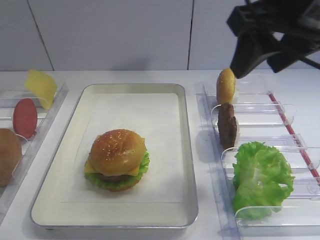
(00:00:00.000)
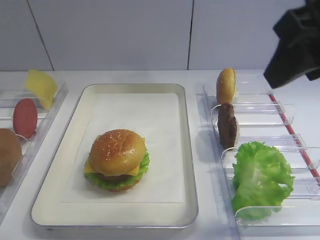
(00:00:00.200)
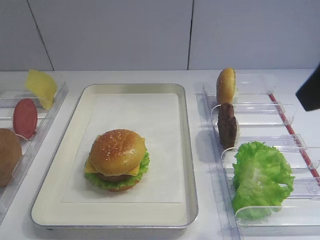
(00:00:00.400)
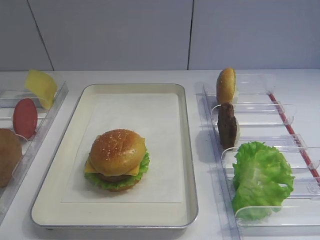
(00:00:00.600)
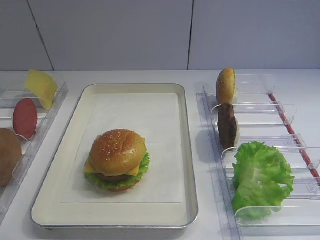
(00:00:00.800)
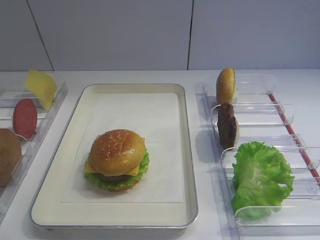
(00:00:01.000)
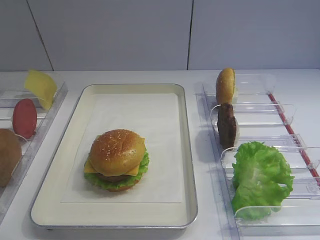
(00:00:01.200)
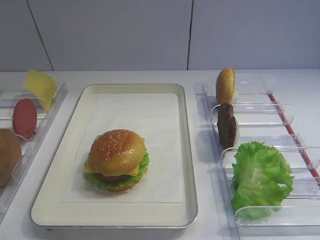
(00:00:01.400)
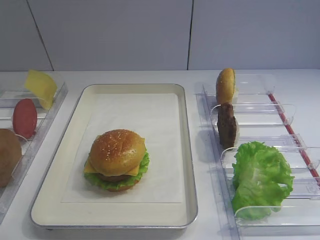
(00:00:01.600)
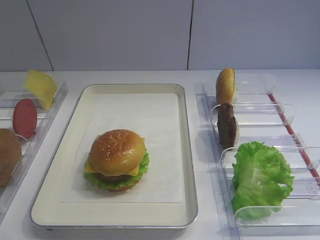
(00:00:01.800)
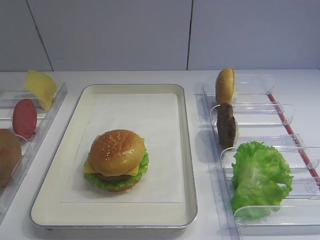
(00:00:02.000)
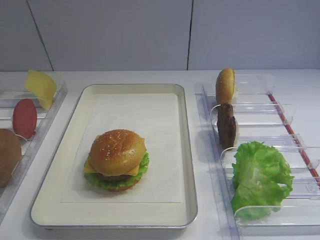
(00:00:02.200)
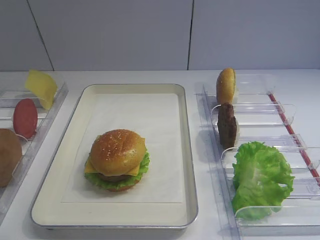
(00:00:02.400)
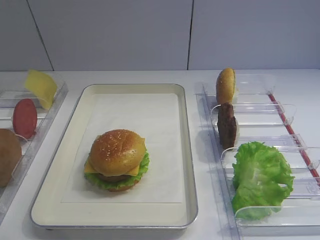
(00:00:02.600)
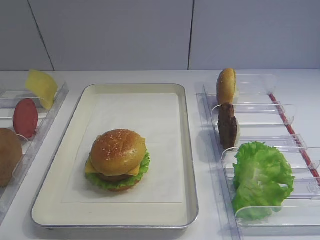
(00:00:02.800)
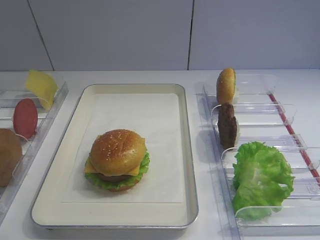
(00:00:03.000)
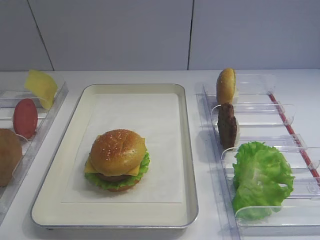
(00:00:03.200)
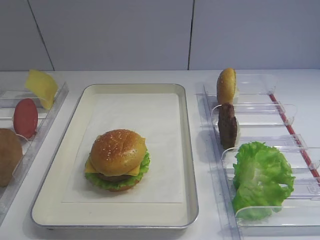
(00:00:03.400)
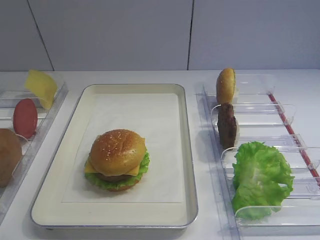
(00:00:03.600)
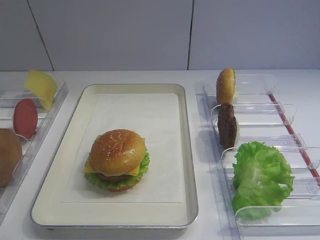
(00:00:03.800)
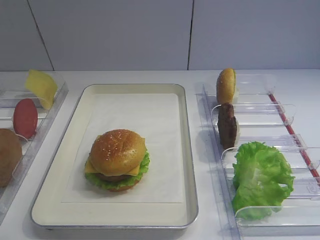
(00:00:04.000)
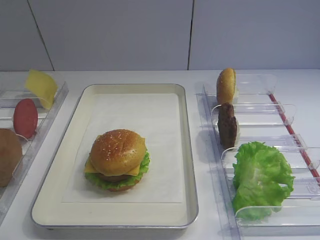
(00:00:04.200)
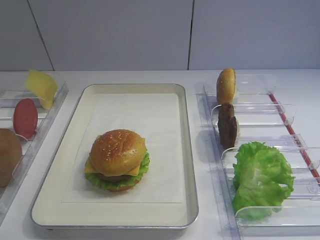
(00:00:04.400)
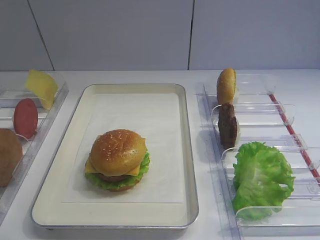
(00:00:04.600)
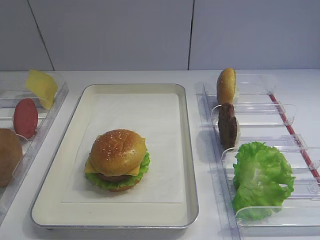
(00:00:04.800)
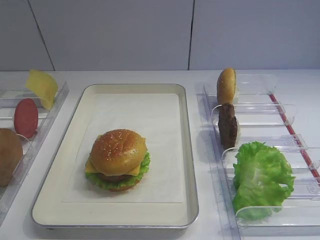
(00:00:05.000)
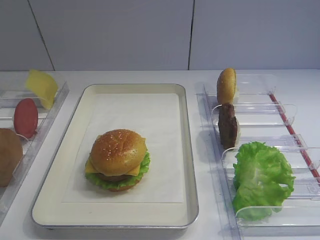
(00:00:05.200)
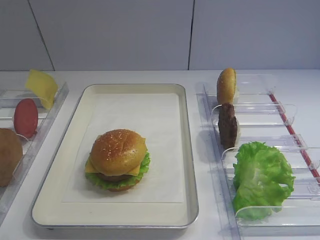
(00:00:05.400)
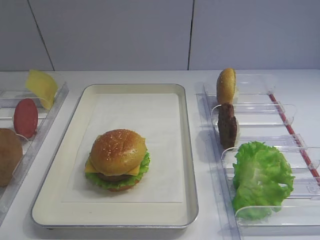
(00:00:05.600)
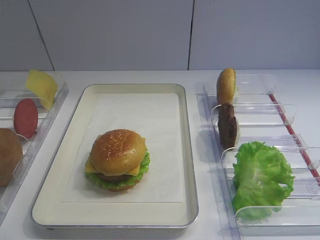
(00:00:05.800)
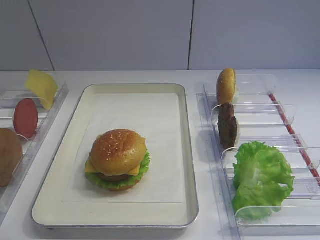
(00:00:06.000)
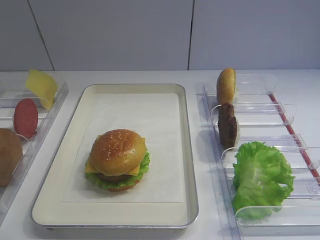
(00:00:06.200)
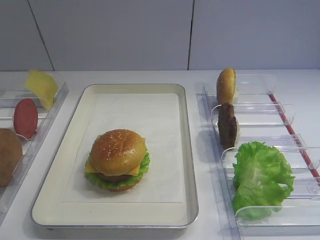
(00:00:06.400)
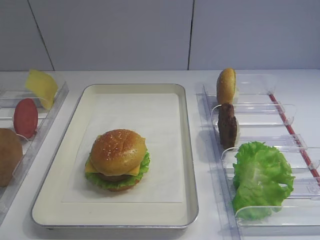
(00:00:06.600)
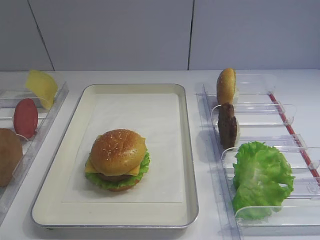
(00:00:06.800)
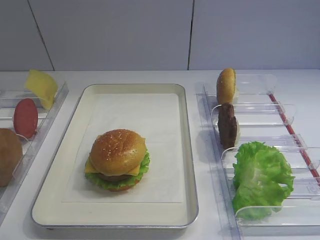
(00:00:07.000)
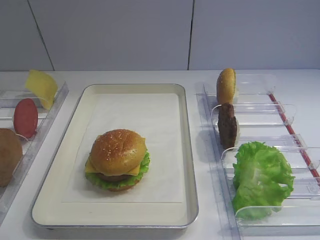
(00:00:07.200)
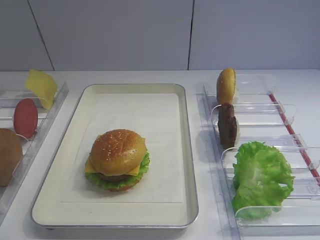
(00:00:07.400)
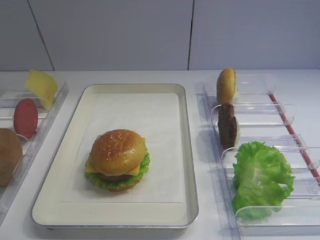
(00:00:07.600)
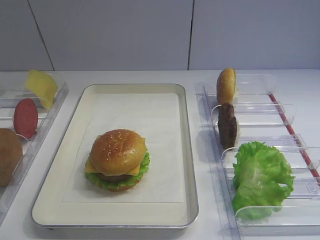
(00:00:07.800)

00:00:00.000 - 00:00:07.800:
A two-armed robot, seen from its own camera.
00:00:00.000 - 00:00:01.600: The right gripper goes some 25 cm backward and to the right.
00:00:03.200 - 00:00:07.800: Neither gripper changes place.

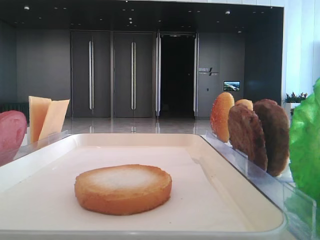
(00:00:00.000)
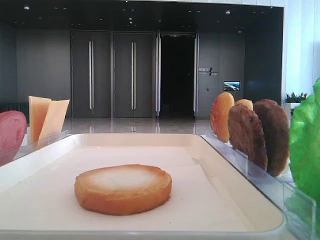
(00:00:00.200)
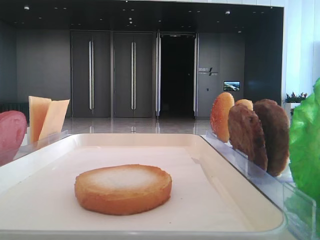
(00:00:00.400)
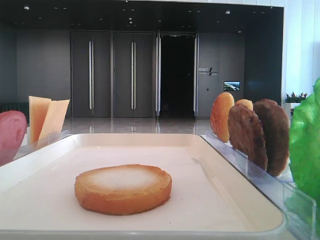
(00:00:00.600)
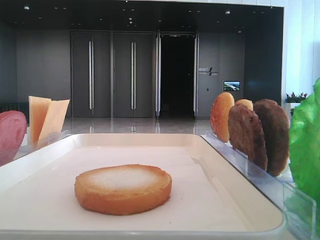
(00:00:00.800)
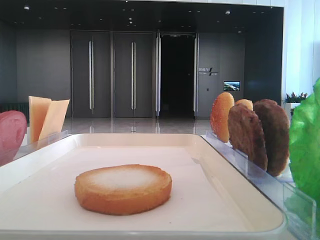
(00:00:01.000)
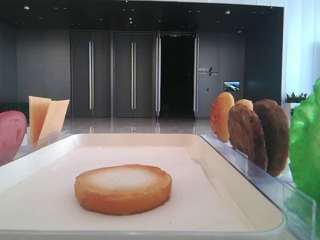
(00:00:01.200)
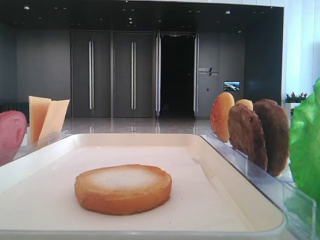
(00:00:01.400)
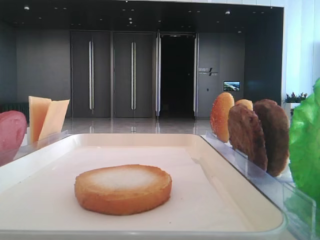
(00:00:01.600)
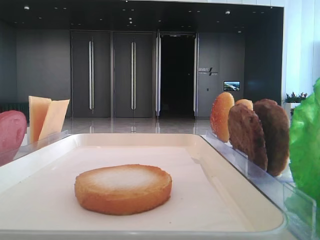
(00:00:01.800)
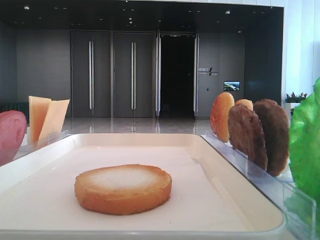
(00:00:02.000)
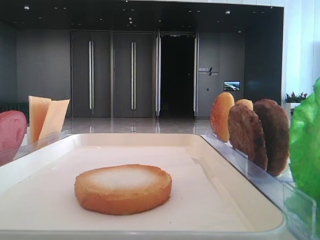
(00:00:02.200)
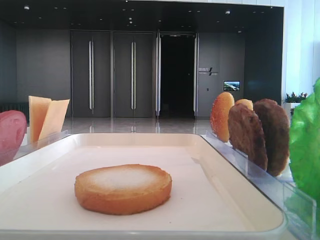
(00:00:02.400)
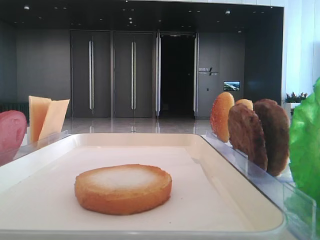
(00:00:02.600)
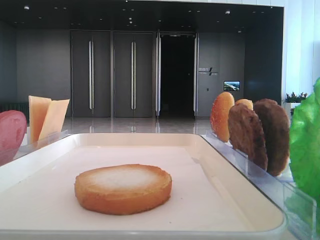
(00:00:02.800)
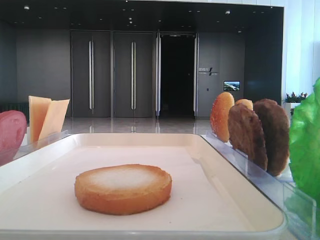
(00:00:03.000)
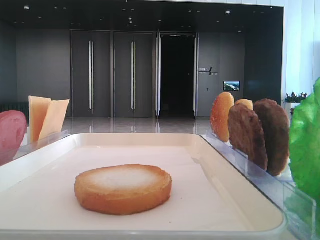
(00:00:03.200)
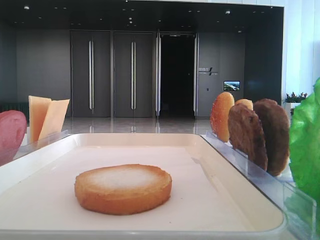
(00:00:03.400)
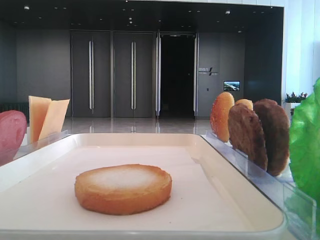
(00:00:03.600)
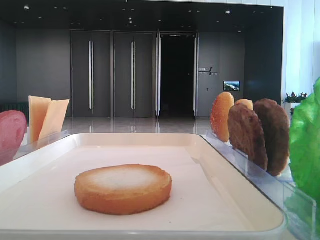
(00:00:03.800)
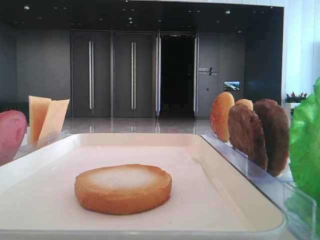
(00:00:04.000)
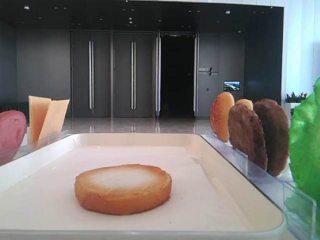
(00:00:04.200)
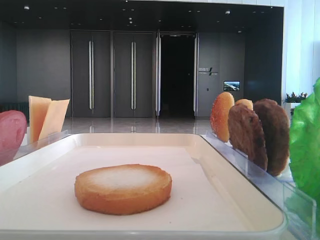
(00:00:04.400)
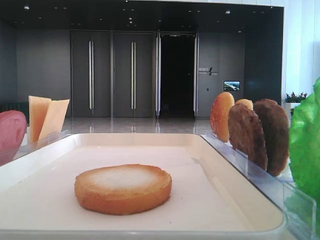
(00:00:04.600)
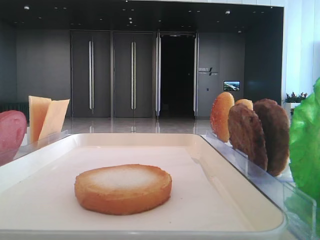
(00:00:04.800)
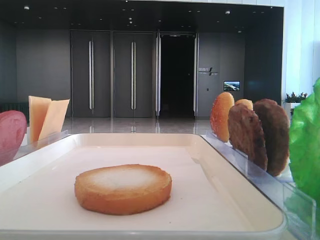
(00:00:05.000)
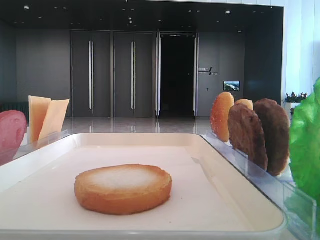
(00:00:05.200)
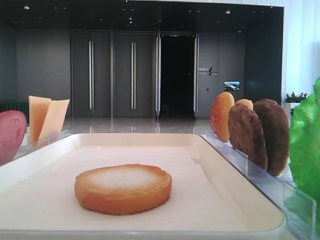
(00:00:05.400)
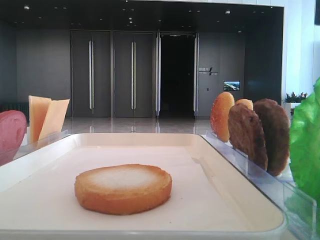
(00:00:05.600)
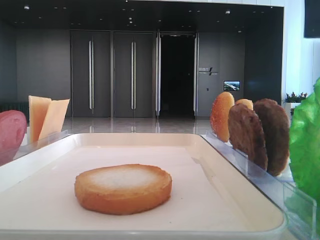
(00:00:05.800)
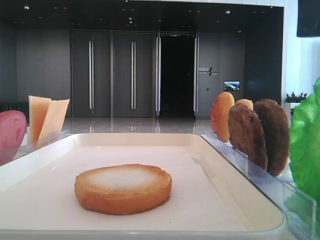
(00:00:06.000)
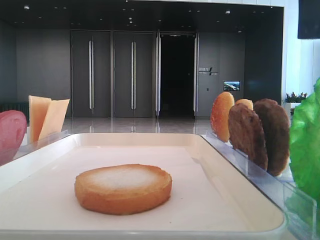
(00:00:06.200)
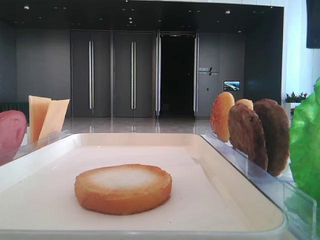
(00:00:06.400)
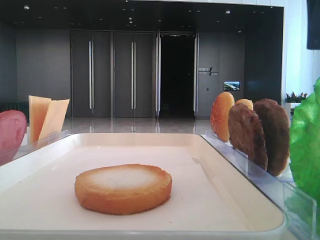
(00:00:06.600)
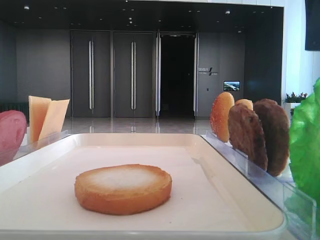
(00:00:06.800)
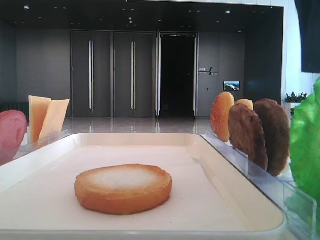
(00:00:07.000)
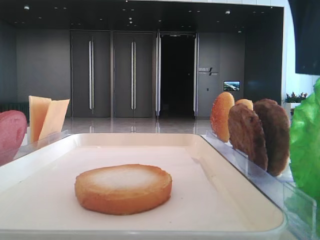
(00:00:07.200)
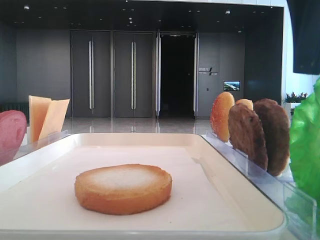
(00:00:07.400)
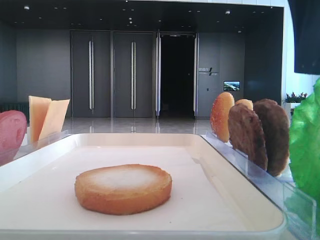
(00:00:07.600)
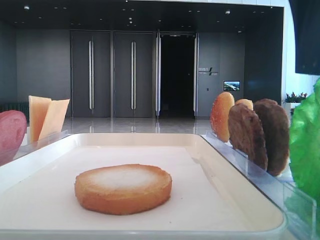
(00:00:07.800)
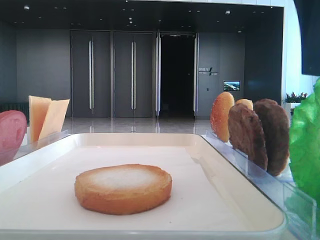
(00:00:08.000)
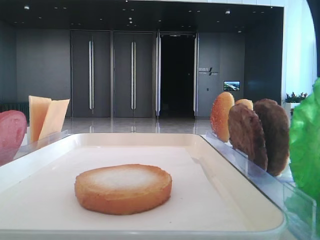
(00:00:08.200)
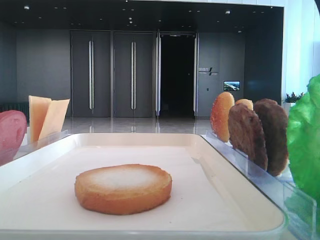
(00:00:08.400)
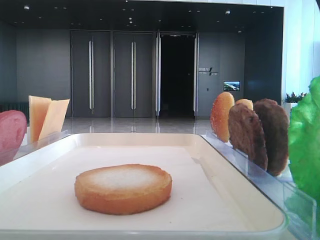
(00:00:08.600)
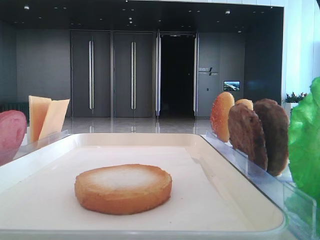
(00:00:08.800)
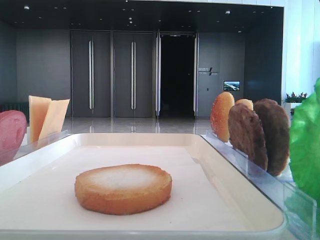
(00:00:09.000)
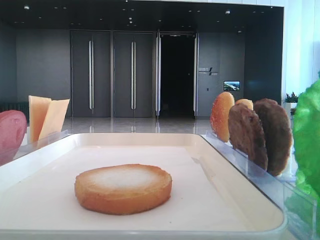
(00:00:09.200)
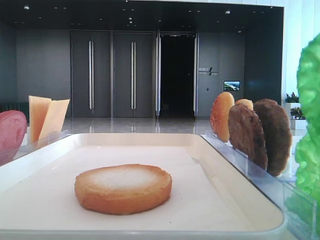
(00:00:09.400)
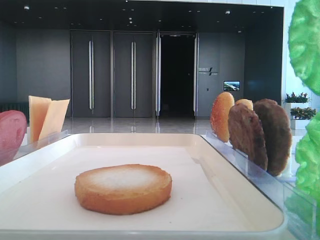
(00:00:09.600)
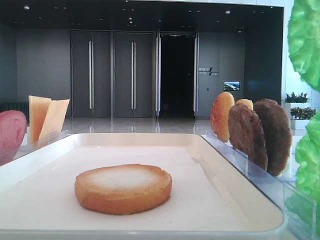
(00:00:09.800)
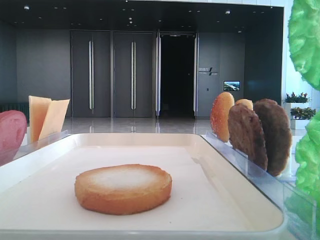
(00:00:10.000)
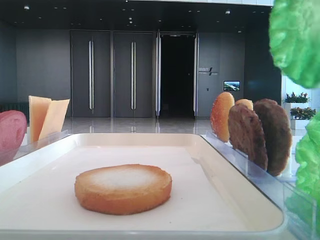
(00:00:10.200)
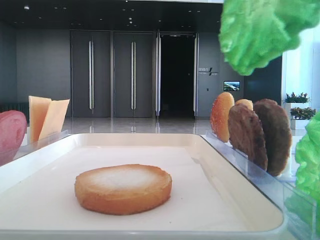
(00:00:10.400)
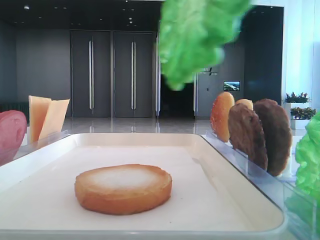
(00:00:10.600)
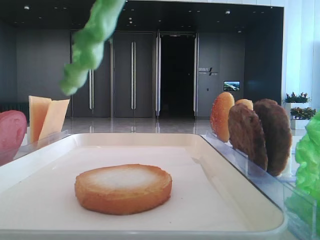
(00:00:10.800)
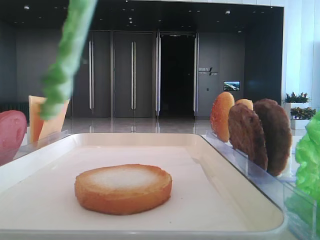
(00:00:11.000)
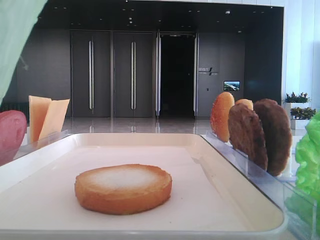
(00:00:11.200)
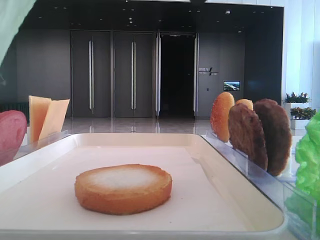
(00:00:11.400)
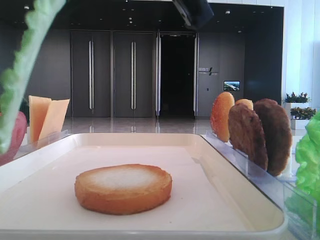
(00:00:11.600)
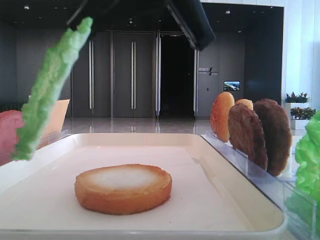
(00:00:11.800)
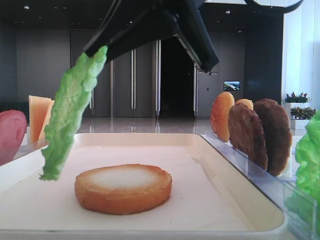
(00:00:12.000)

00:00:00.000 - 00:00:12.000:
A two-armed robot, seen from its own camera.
Step, 00:00:00.000 - 00:00:08.400: Grab the lettuce leaf with the right hand.
00:00:04.400 - 00:00:06.000: The right gripper moves forward and to the left, approximately 10 cm.
00:00:06.000 - 00:00:07.600: There are only small adjustments of the grippers.
00:00:07.600 - 00:00:09.000: The right gripper closes up.
00:00:09.000 - 00:00:10.400: The right gripper travels upward by approximately 10 cm.
00:00:10.400 - 00:00:12.000: The right gripper heads to the left, downward and forward, covering about 15 cm.

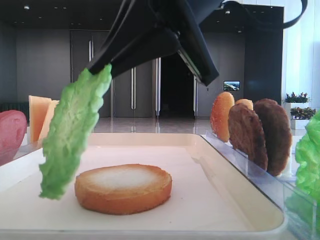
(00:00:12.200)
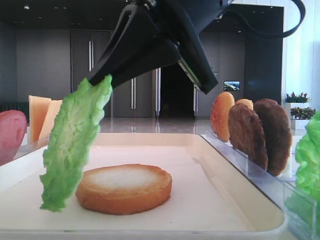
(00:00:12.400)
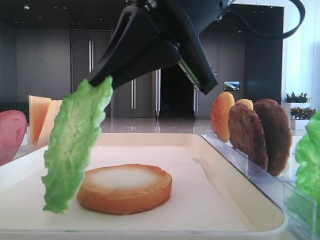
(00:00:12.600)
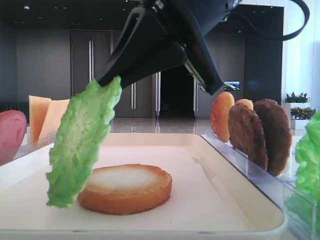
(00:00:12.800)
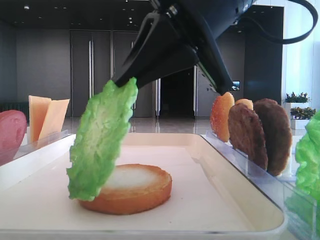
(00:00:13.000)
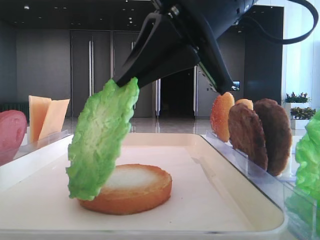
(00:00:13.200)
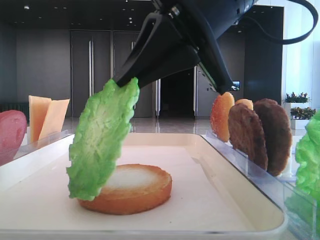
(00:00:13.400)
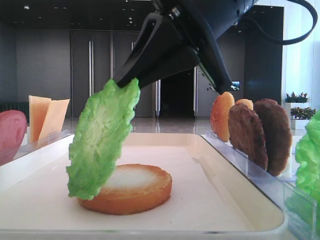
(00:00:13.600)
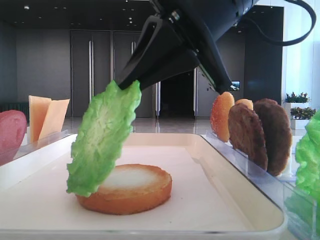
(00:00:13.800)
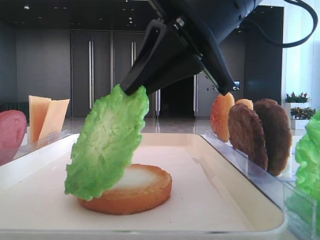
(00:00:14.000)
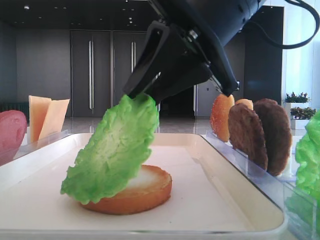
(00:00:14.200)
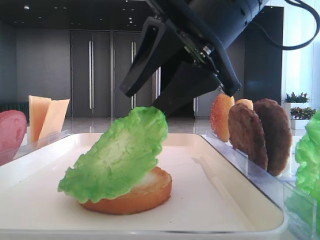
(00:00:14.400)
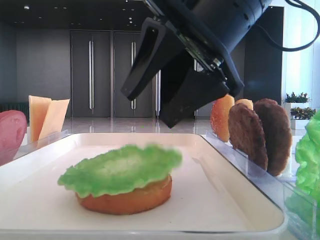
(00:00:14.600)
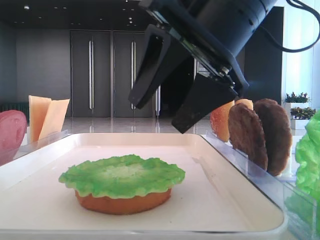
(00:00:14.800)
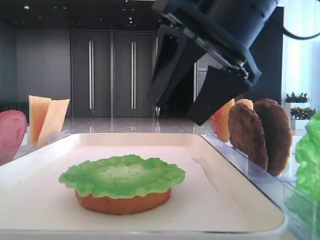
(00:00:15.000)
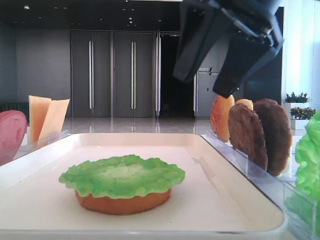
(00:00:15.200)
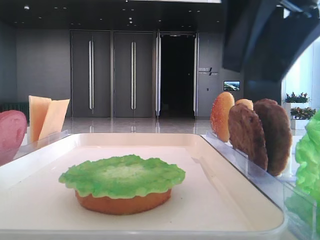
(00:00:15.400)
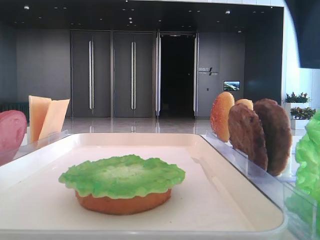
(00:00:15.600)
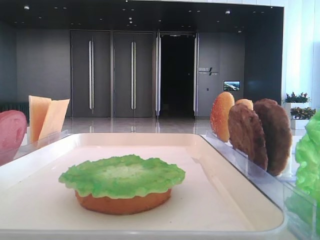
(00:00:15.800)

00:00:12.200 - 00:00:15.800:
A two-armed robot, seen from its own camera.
Step, 00:00:12.200 - 00:00:14.400: Place the lettuce leaf on the bottom bread with the right hand.
00:00:12.200 - 00:00:14.000: There are only small adjustments of the grippers.
00:00:14.000 - 00:00:15.800: The right gripper shifts approximately 15 cm to the right and upward, and opens up.
